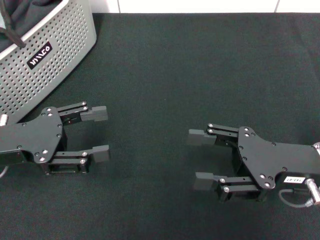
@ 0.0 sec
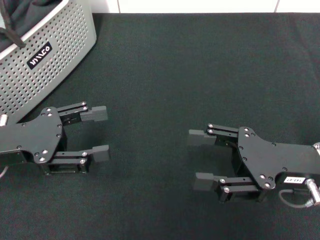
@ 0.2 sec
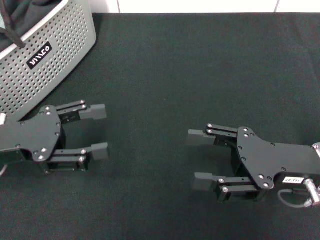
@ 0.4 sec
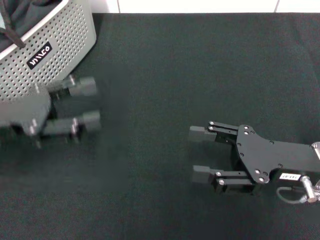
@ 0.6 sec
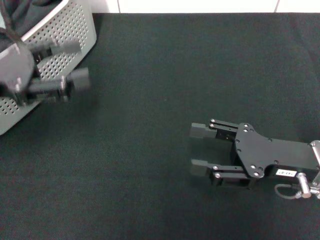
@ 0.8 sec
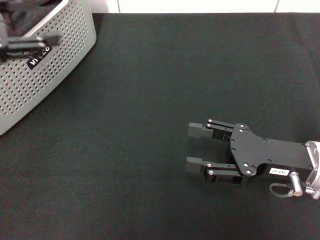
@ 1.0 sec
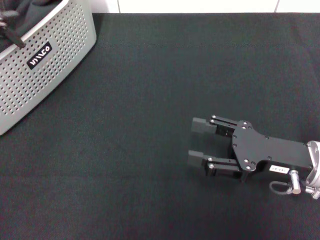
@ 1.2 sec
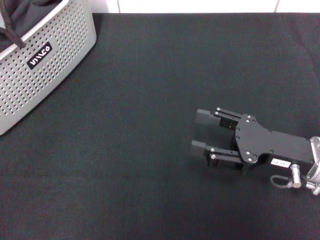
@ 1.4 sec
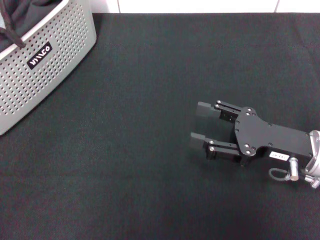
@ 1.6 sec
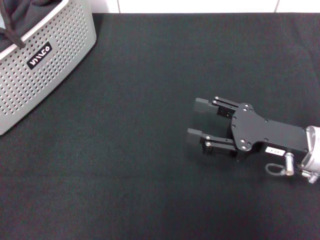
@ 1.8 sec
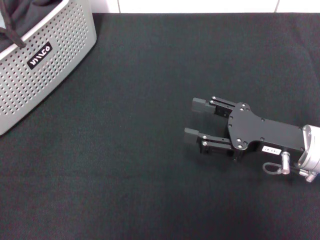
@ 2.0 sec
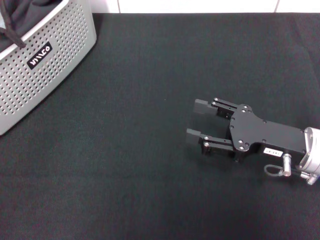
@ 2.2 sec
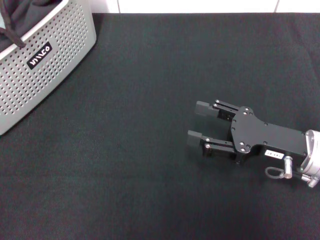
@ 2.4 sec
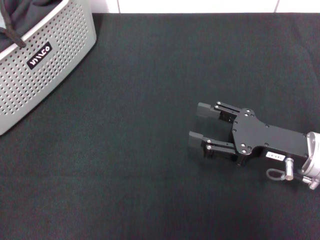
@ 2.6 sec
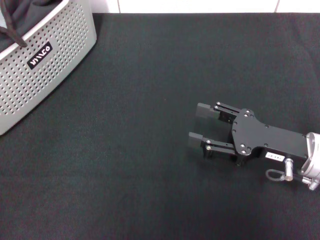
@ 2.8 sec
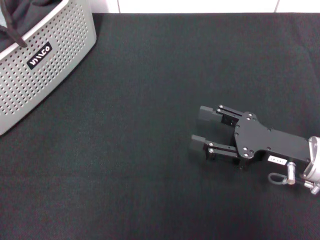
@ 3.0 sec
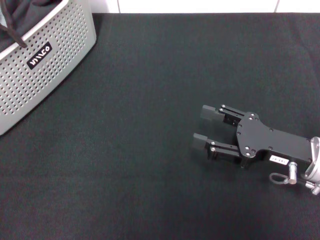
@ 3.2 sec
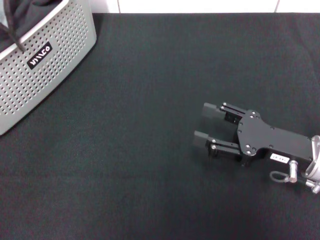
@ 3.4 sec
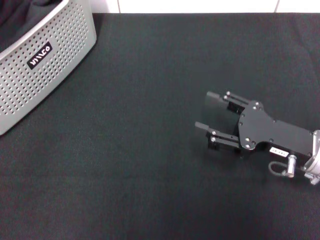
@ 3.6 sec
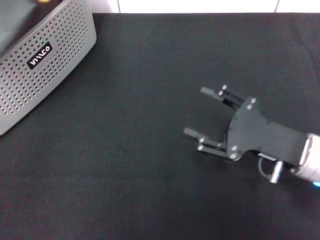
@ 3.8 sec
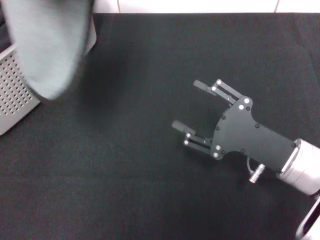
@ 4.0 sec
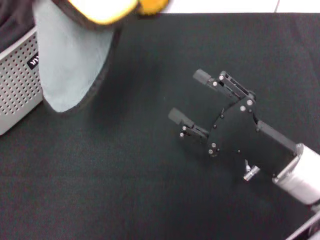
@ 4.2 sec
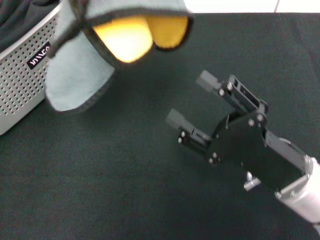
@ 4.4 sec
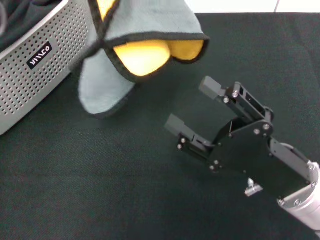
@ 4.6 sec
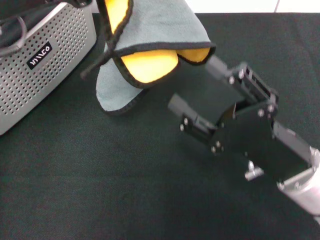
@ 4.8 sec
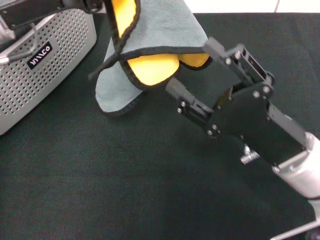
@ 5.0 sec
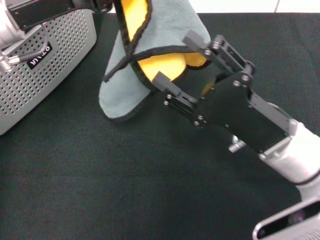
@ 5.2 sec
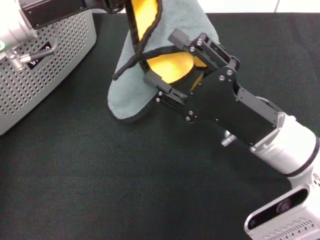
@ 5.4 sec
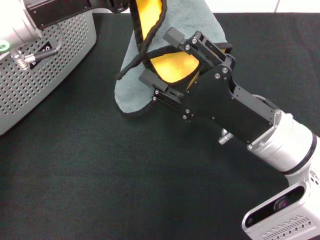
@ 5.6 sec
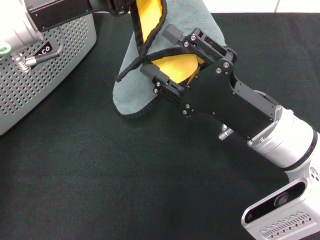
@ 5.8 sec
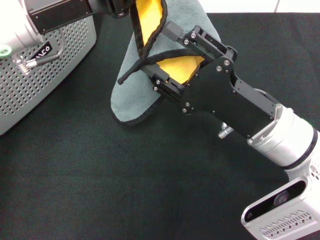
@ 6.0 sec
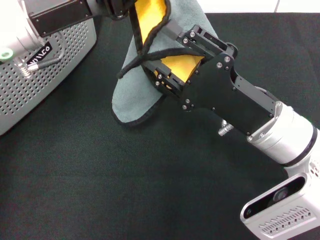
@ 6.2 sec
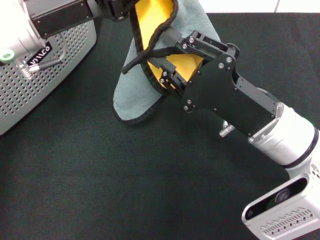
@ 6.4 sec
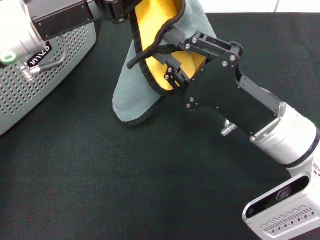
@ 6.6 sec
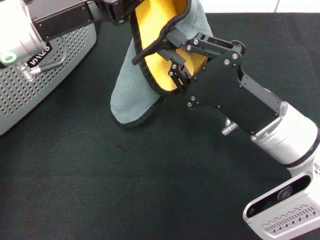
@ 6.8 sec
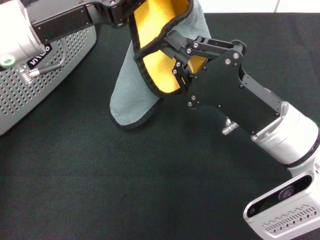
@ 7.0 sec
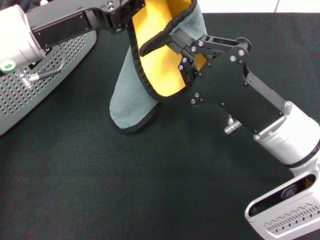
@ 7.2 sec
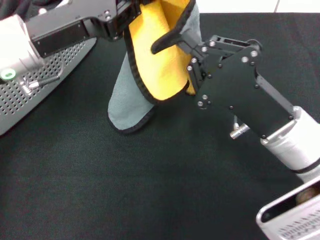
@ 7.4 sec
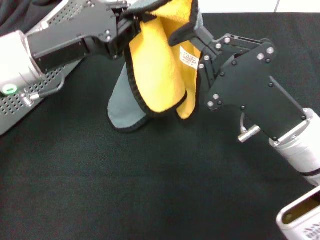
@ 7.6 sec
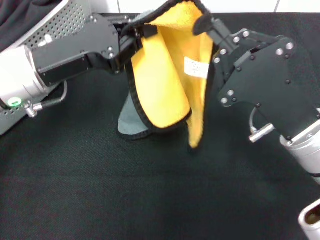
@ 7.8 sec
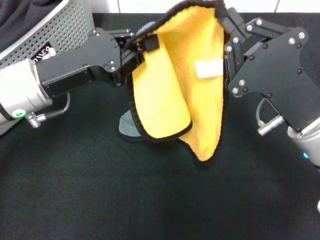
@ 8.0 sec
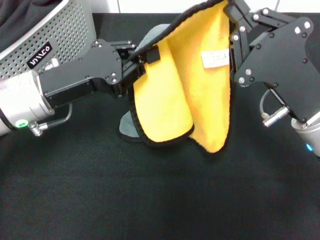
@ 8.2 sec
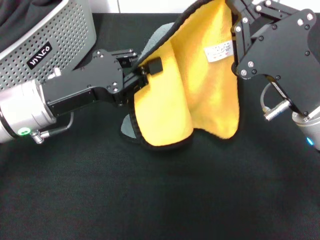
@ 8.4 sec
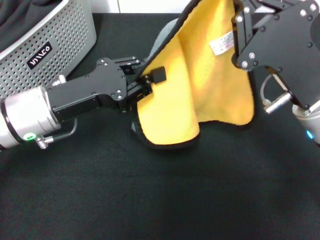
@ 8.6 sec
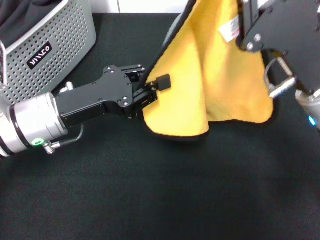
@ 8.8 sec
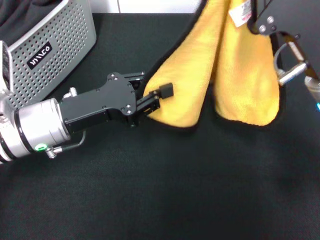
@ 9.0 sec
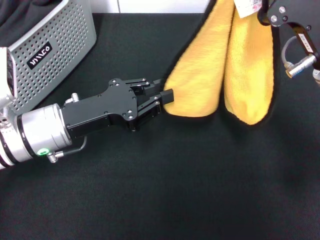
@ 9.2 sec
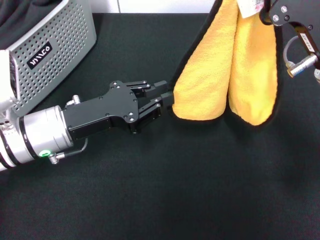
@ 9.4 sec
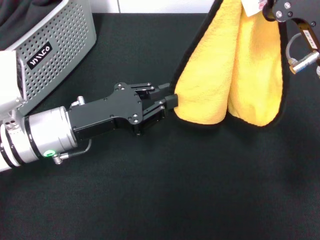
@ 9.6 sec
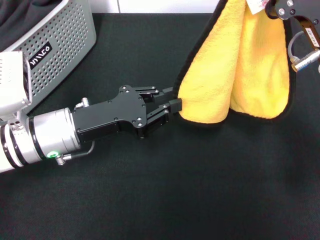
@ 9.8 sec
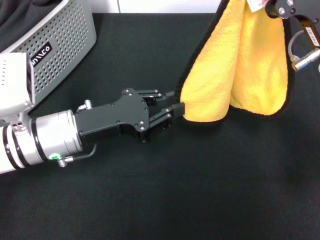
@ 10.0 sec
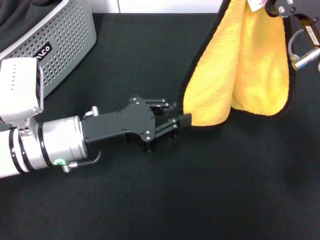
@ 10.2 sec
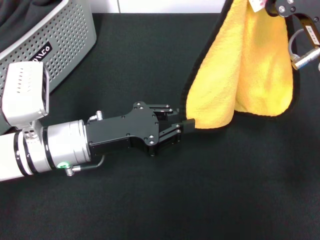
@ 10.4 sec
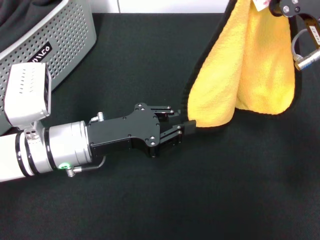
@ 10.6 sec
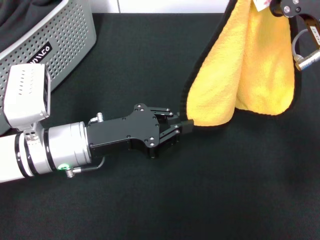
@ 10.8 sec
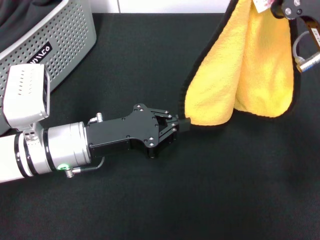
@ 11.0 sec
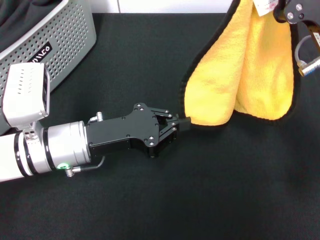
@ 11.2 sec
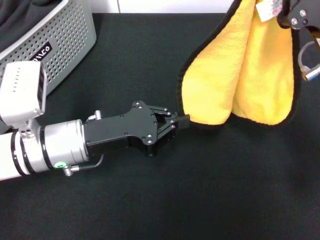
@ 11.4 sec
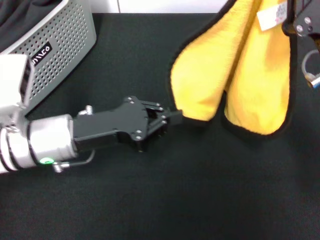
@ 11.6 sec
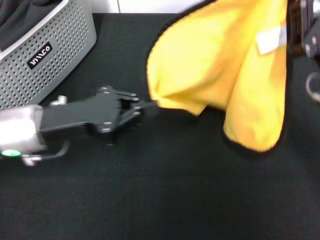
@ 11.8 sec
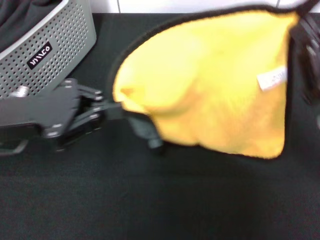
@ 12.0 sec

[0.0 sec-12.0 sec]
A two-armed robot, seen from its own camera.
Task of the whole recording: pick up the towel from the storage box and lay it flat on the black tablecloth.
Step, 0.0 sec to 3.2 sec: Pick up a towel with the left gripper.
Step, 3.4 sec to 7.0 sec: Spread the towel flat with the left gripper.
0.0 sec to 1.6 sec: The left gripper travels upward and to the left by about 20 cm.
3.0 sec to 4.4 sec: The left gripper is displaced to the right and upward by about 15 cm, and closes, while the right gripper shifts approximately 5 cm backward.
4.4 sec to 6.0 sec: The right gripper heads forward, covering about 5 cm. The left gripper is displaced downward by roughly 10 cm.
6.0 sec to 7.6 sec: The left gripper ends up about 5 cm from where it was; the right gripper closes its fingers.
7.6 sec to 9.0 sec: The right gripper changes place by some 5 cm; the left gripper moves downward, approximately 10 cm.
10.4 sec to 12.0 sec: The left gripper moves to the left and upward, about 10 cm, while the right gripper goes about 10 cm downward and to the right.

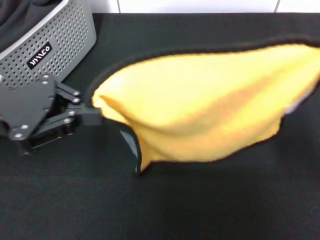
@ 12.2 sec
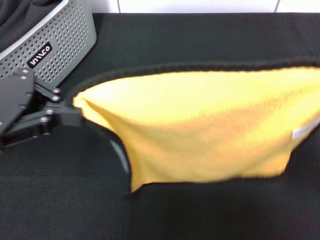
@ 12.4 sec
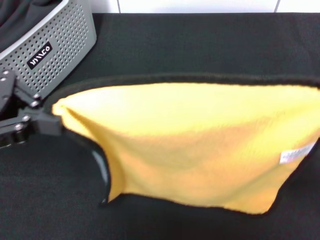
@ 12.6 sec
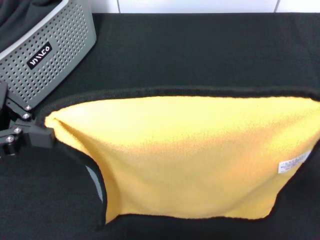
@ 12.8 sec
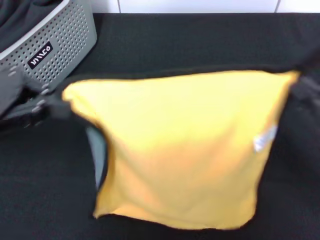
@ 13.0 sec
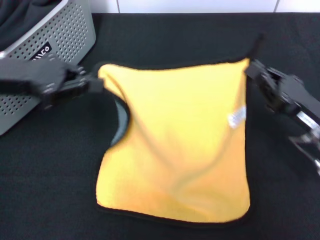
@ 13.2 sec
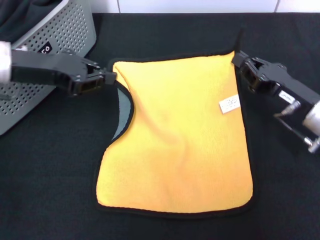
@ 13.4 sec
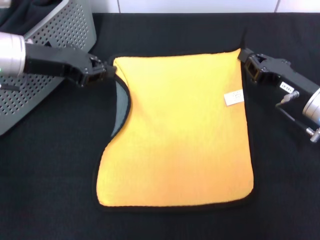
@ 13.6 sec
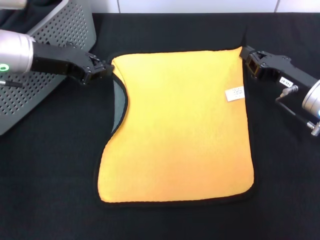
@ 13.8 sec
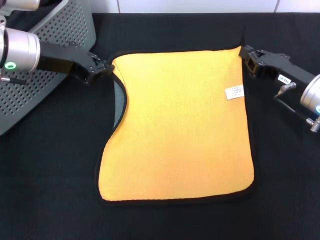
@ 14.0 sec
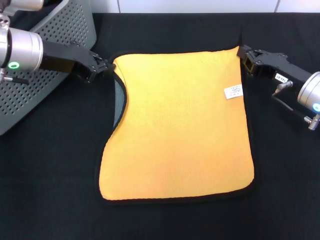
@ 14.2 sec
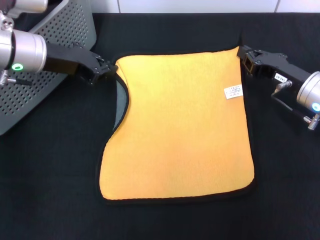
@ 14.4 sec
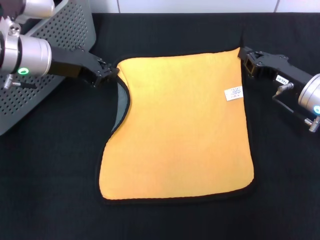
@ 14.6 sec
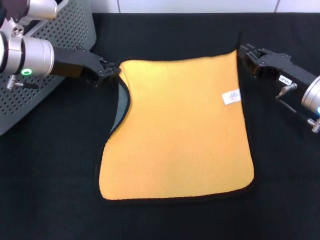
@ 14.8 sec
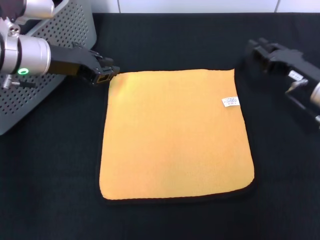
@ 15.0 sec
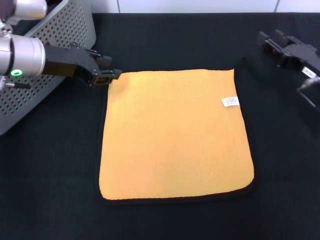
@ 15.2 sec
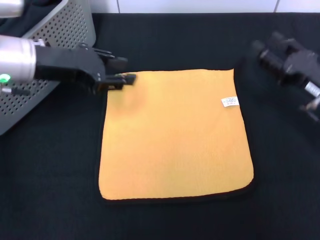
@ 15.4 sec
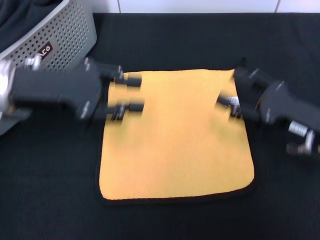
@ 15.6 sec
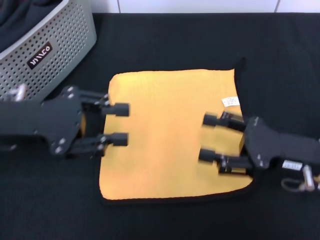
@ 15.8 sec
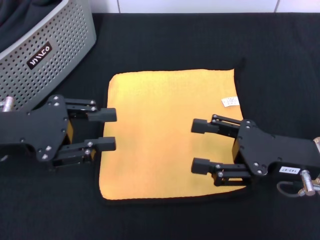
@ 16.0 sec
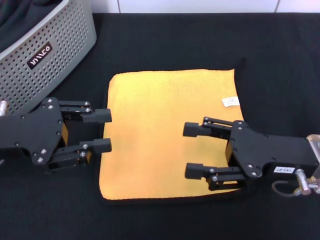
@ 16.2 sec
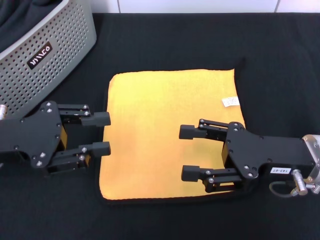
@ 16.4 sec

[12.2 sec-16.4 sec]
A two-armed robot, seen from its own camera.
Task of the whole recording: pick up the towel from the storage box and lay it flat on the black tablecloth.
Step, 12.2 sec to 14.8 sec: Spread the towel flat with the right gripper.
12.2 sec to 13.6 sec: Both grippers move forward, roughly 10 cm.
15.0 sec to 16.4 sec: The left gripper moves backward, roughly 15 cm, and opens. Meanwhile the right gripper is displaced backward by some 10 cm, and opens up.
